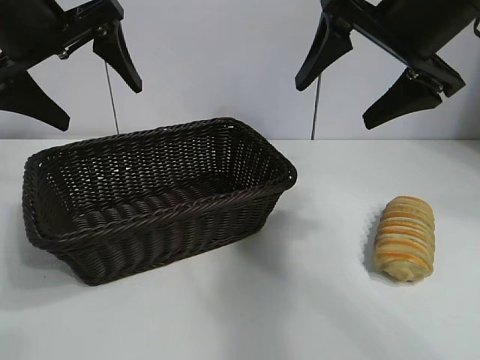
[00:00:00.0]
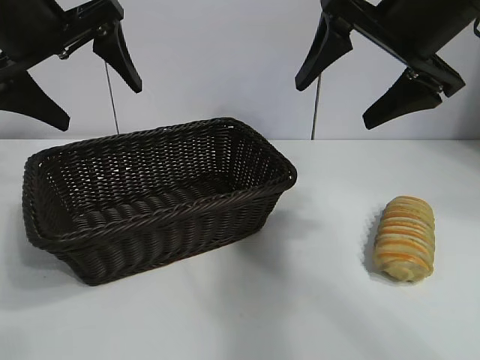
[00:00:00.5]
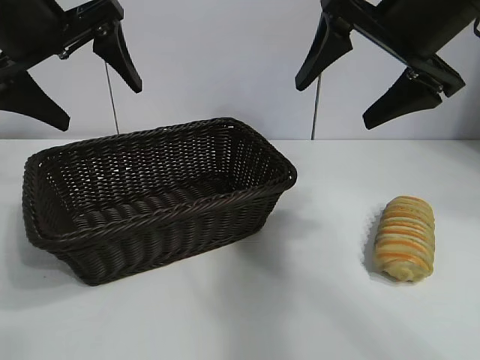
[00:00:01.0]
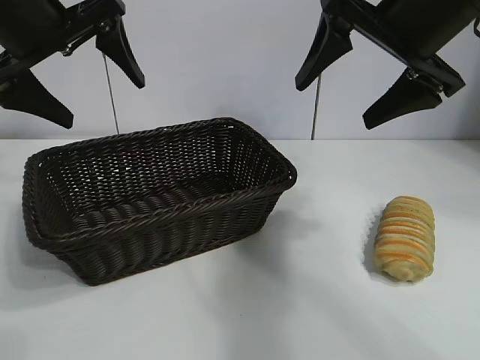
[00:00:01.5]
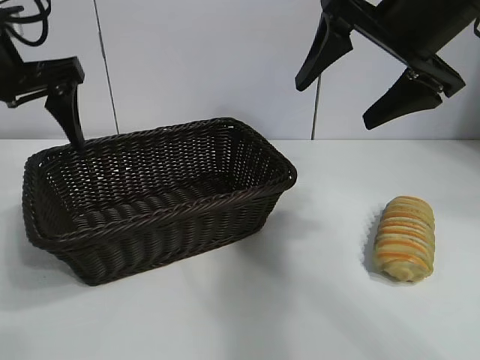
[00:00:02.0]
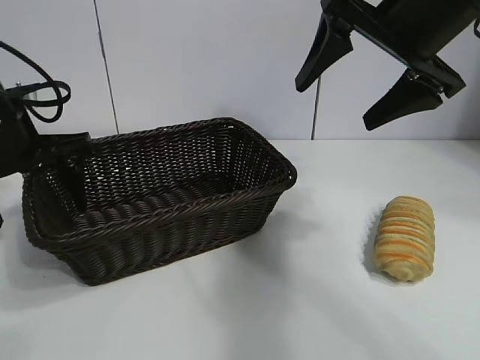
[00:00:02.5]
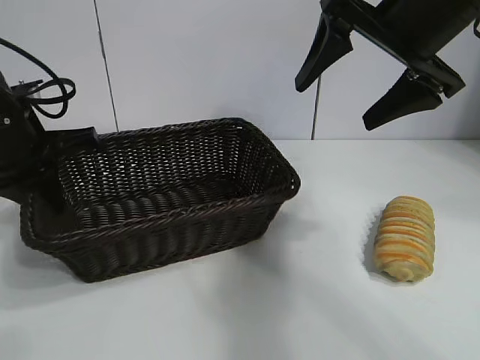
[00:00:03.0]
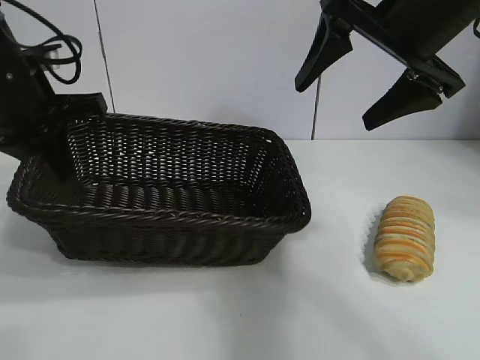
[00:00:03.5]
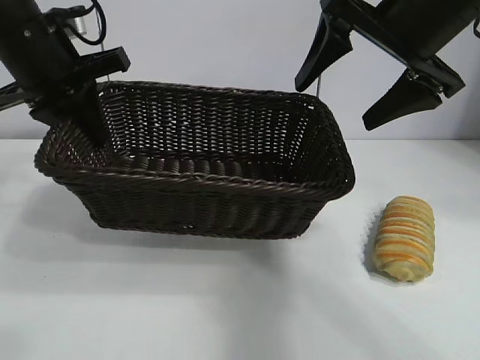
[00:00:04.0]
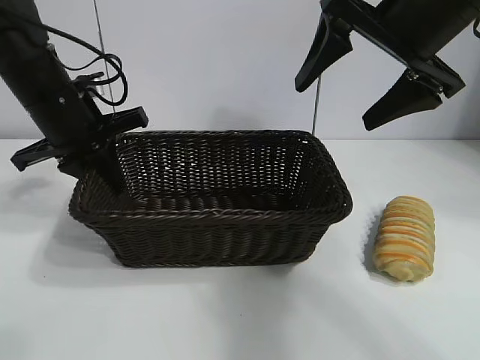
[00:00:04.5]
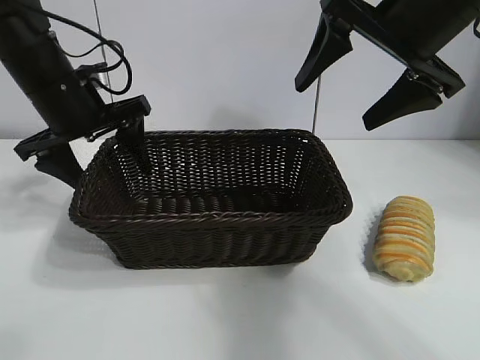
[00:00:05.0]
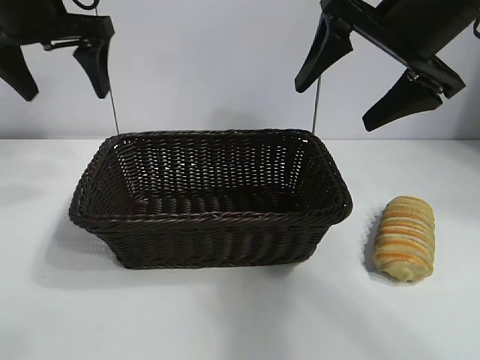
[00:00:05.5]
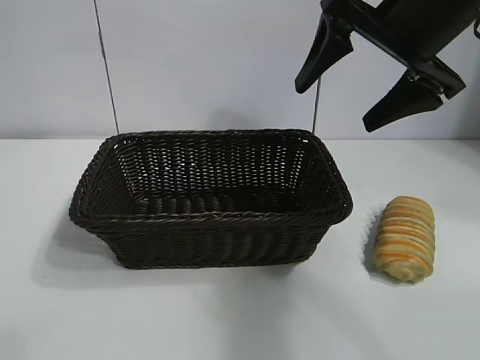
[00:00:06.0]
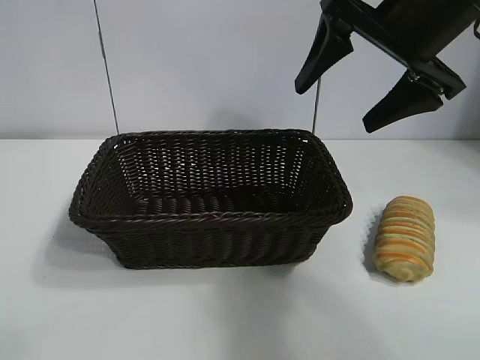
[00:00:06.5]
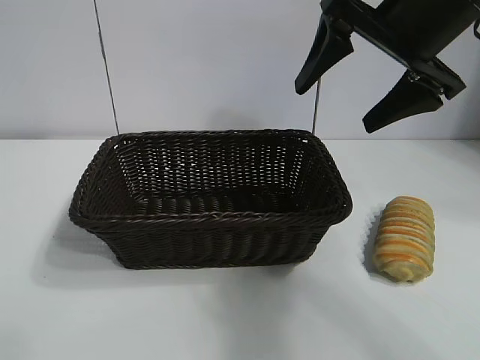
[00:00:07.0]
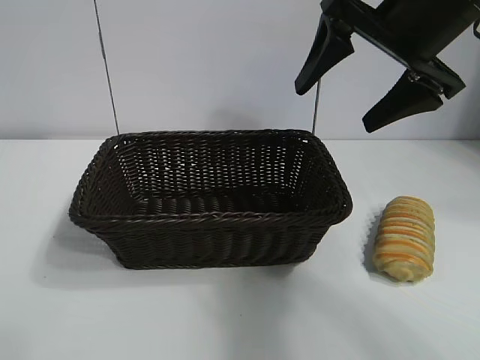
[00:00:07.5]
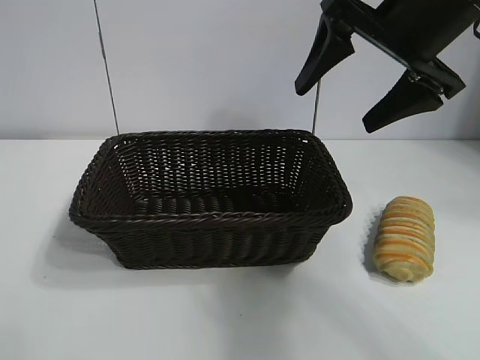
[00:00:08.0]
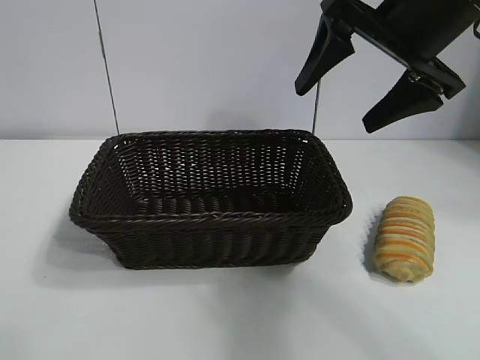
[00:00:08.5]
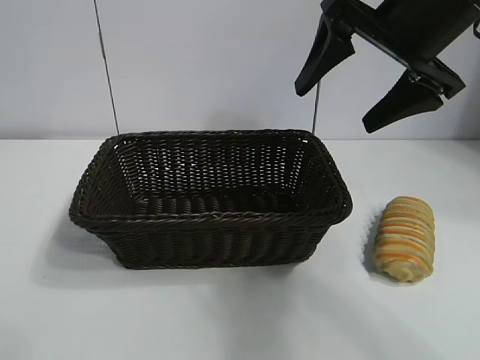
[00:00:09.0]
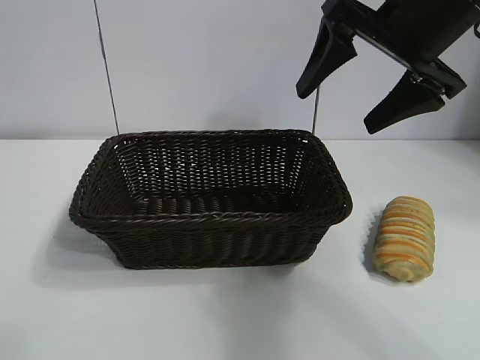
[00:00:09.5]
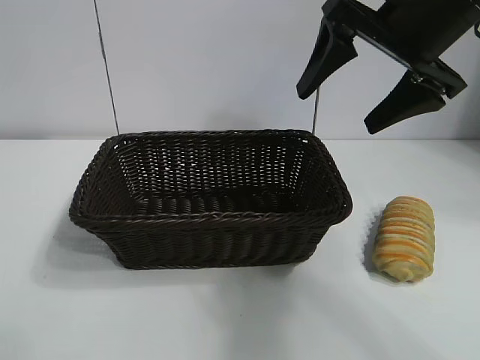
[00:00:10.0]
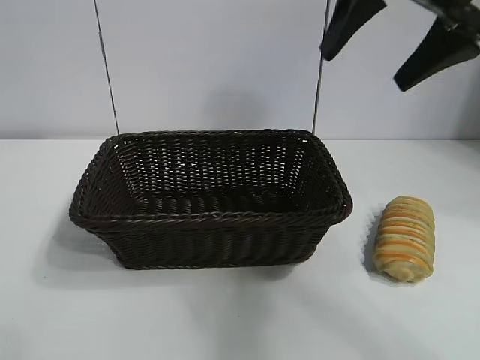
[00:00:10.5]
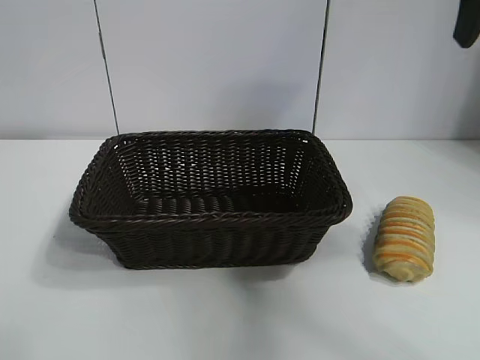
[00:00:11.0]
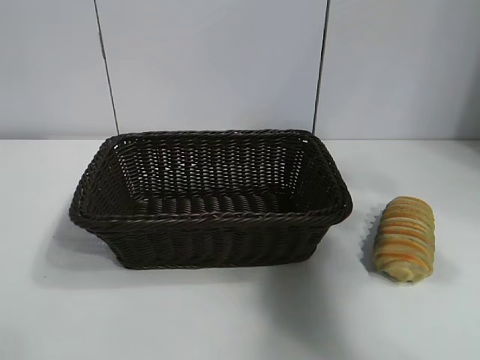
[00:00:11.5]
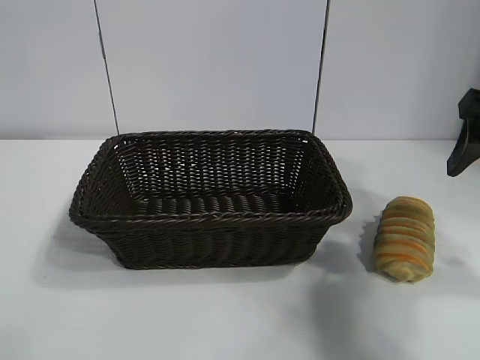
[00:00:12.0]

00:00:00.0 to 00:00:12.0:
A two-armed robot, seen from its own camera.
Task of the whole recording: pick up the long bread and put it into the basket.
Step, 00:00:01.5 to 00:00:03.0: Grasp the basket with the left gripper.
Step, 00:00:03.5 to 00:00:05.0: Place the basket in the center of the table with the left gripper.

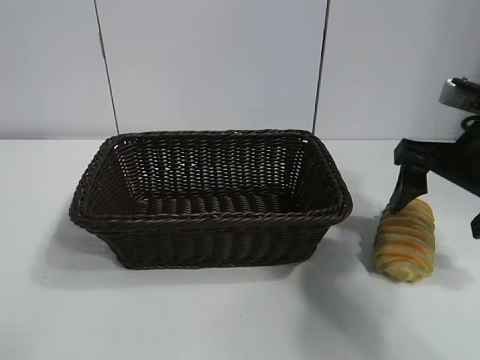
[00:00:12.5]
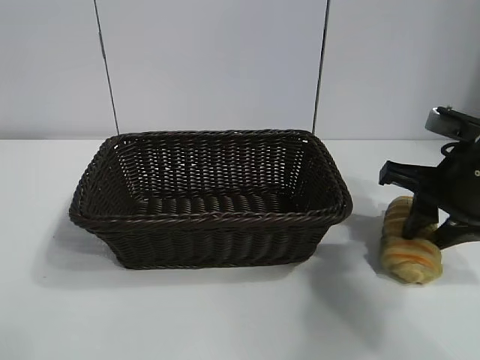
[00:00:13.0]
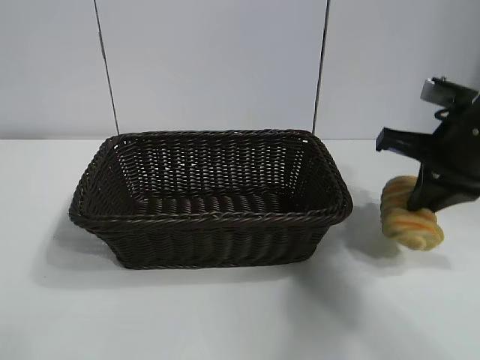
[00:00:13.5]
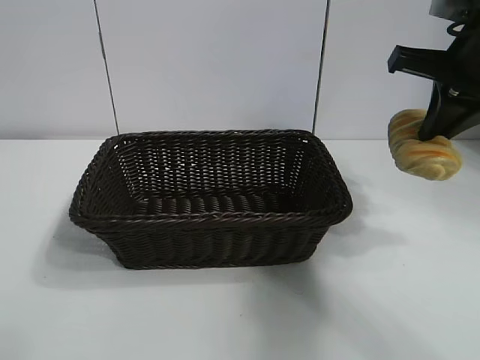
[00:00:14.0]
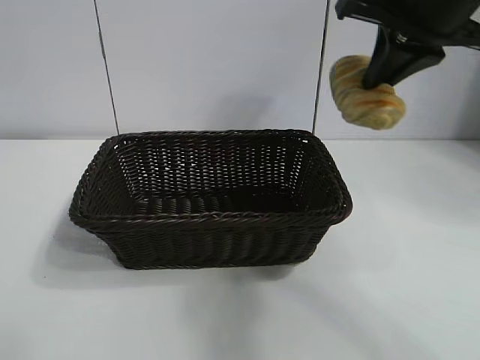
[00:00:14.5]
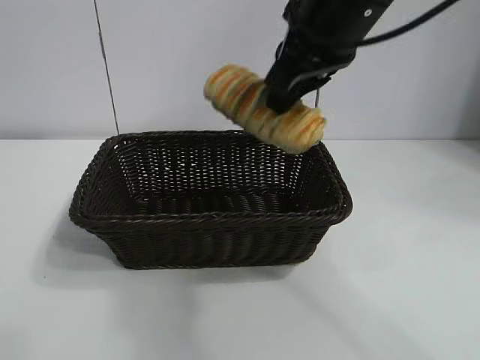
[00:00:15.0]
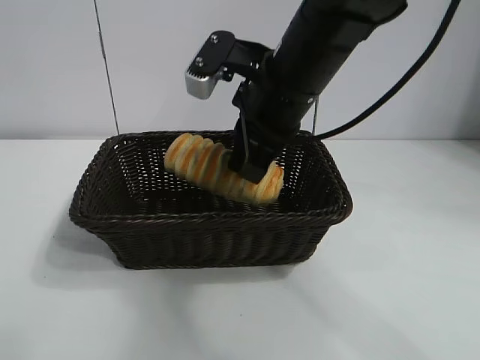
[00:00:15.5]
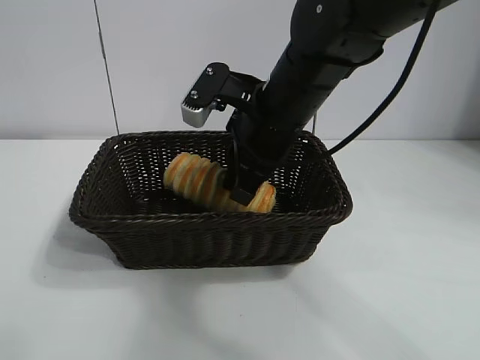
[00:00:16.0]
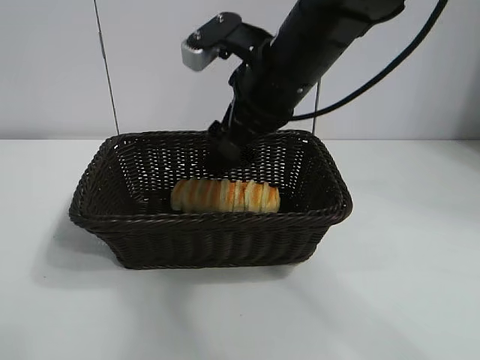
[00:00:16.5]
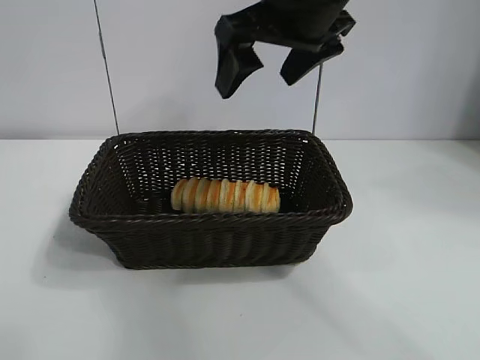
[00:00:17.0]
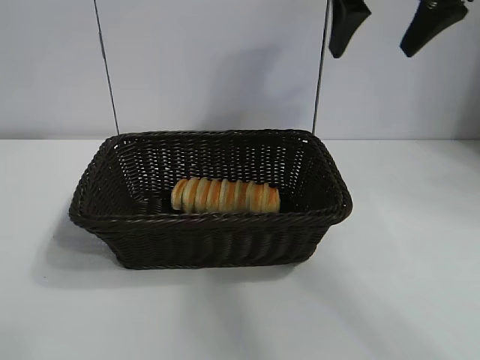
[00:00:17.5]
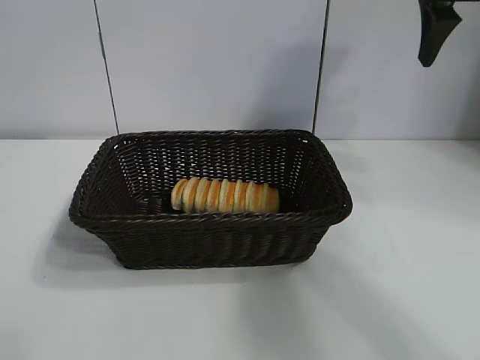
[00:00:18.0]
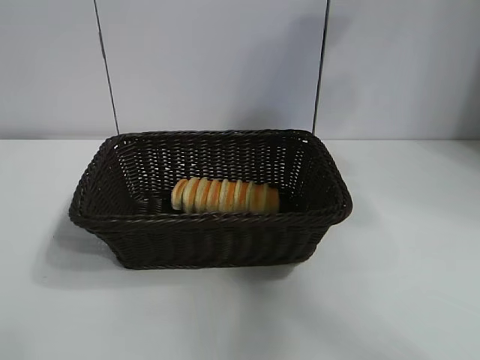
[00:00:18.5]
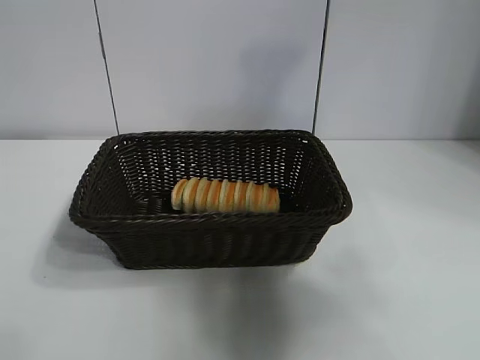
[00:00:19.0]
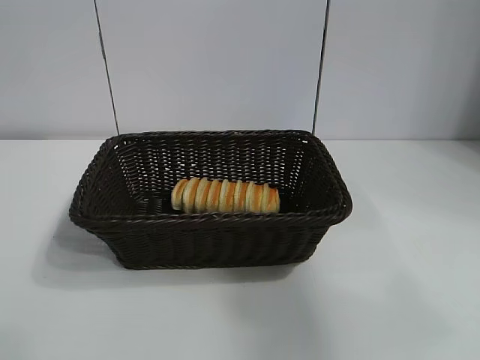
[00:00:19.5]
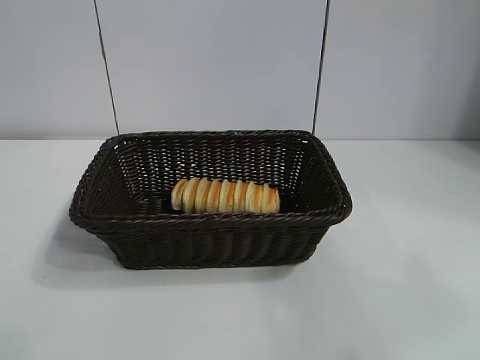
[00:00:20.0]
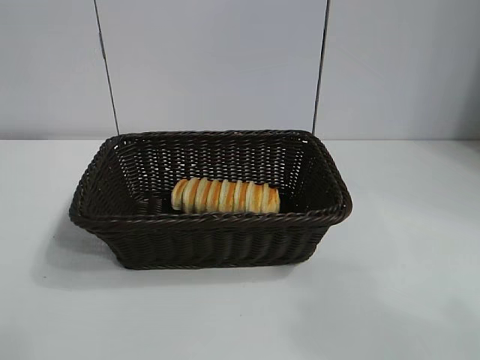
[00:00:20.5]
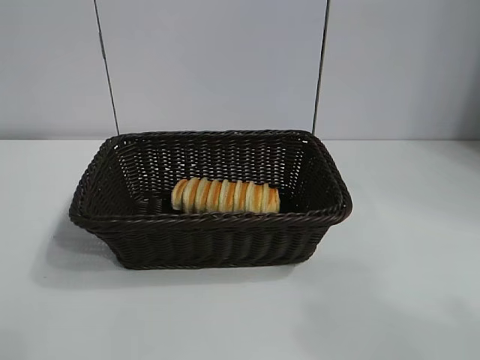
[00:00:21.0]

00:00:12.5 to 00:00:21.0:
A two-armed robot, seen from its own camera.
Task of the whole recording: pick up the long bread and put it into the basket.
Step, 00:00:13.5 to 00:00:16.0: Place the long bread in the basket with right gripper.
